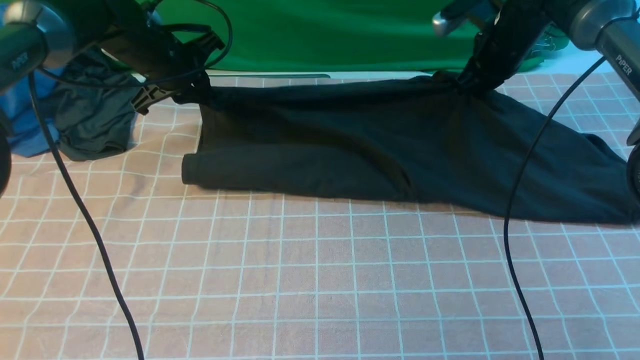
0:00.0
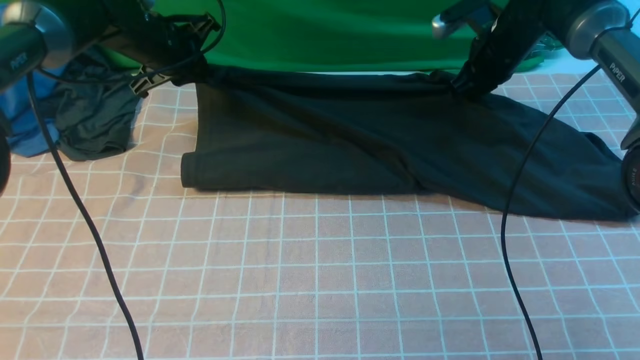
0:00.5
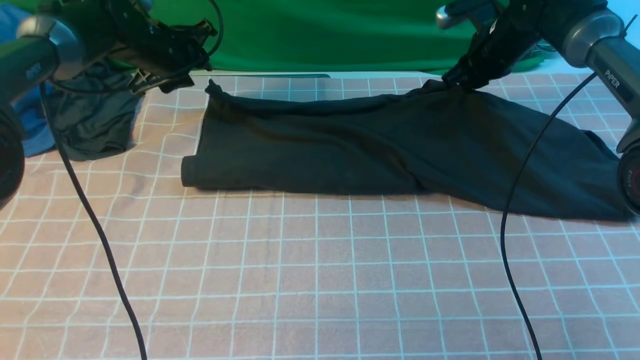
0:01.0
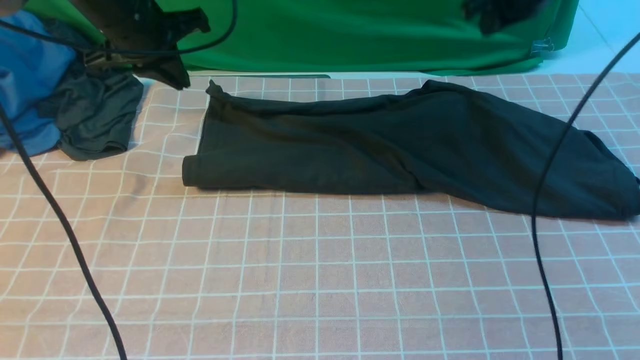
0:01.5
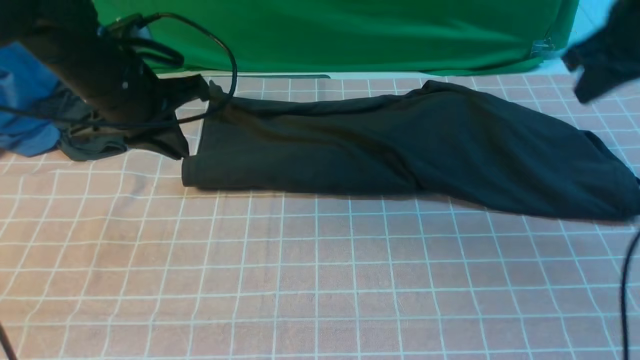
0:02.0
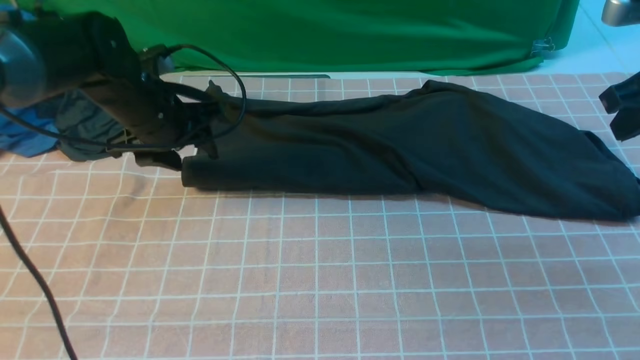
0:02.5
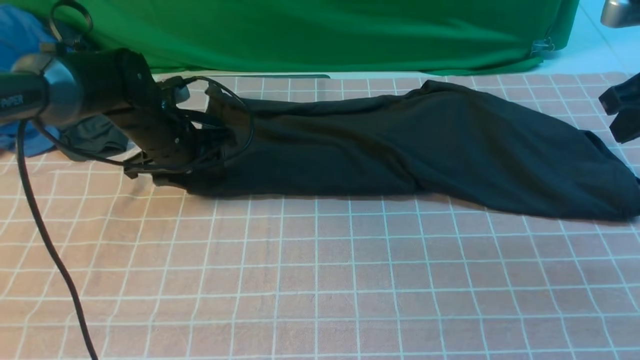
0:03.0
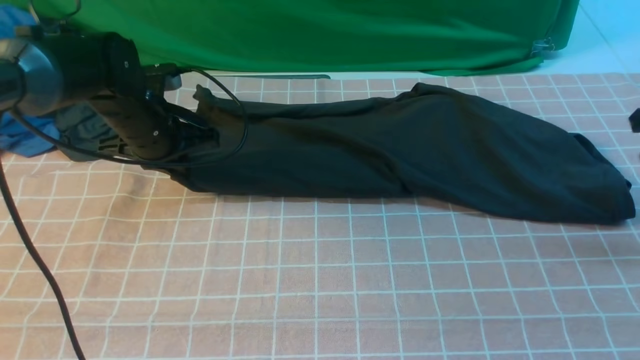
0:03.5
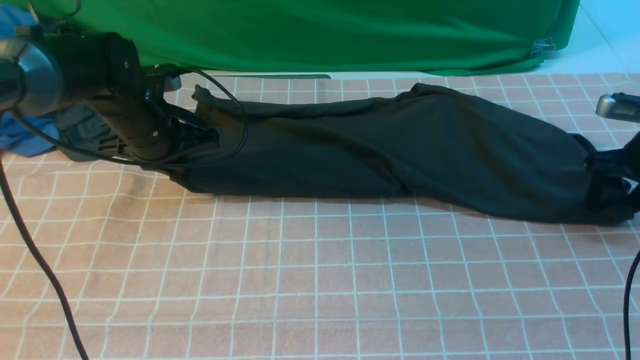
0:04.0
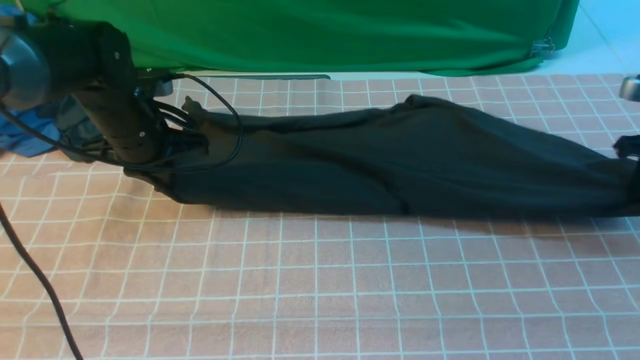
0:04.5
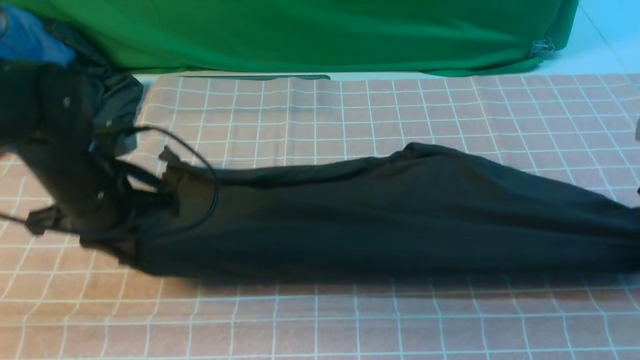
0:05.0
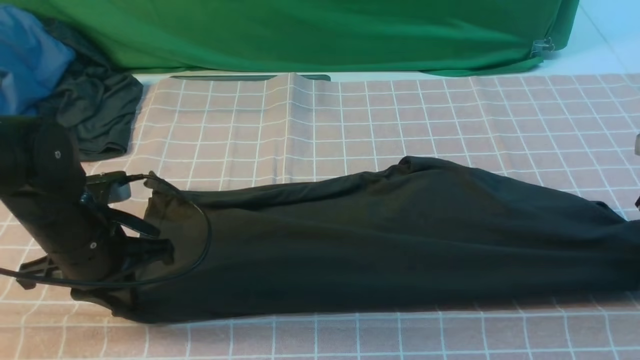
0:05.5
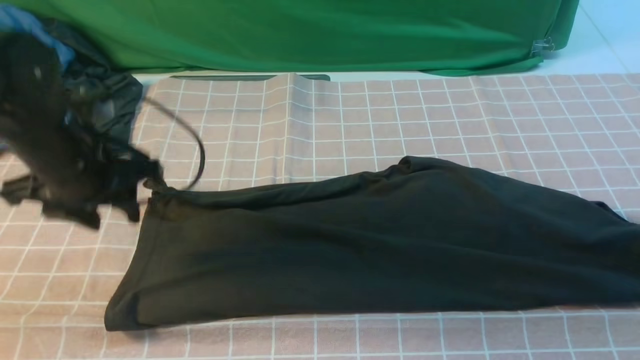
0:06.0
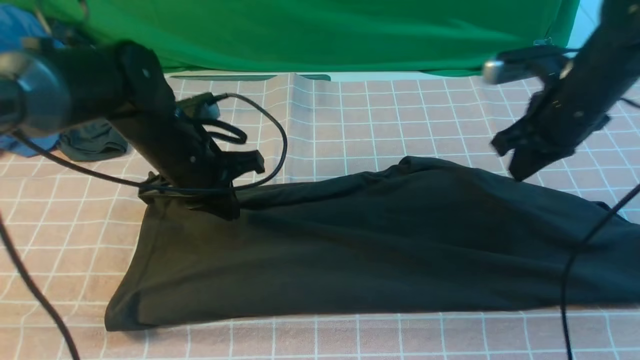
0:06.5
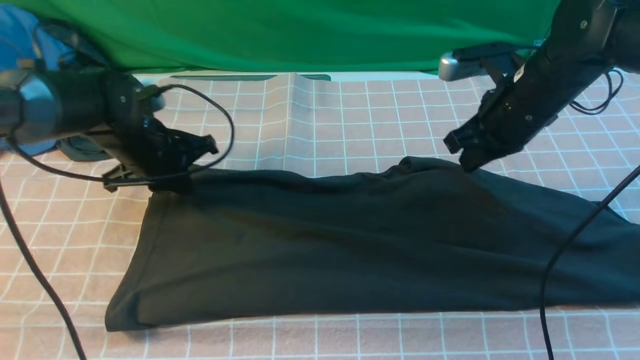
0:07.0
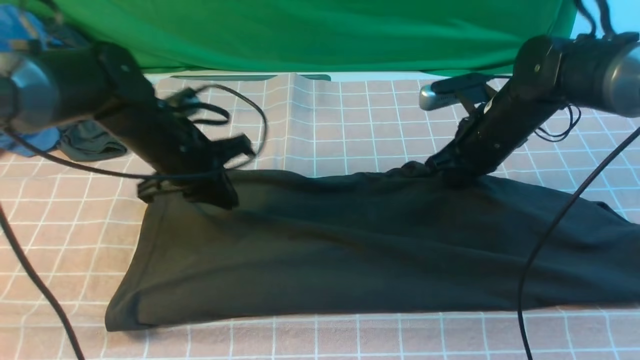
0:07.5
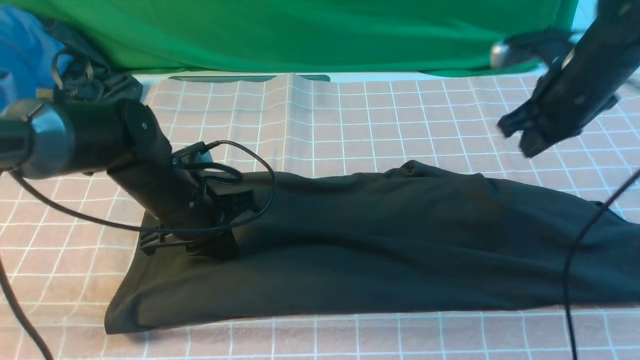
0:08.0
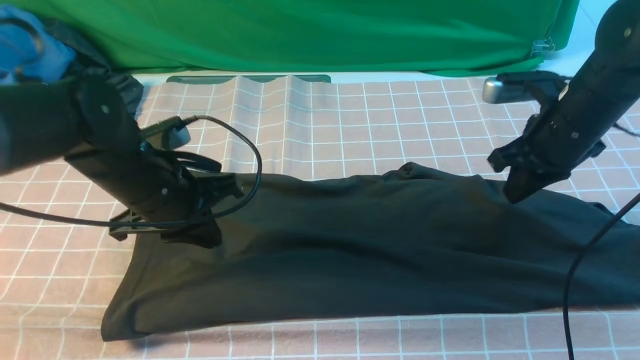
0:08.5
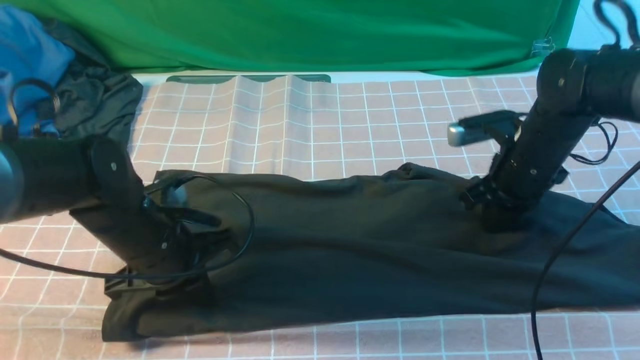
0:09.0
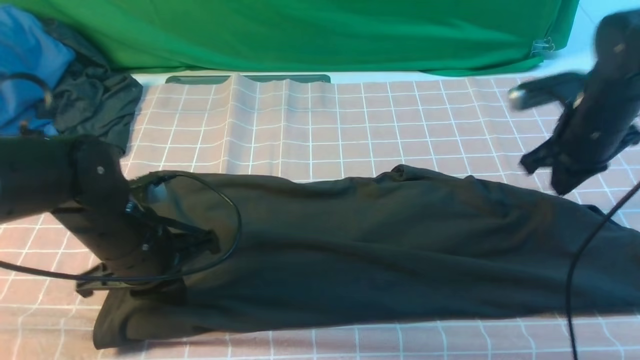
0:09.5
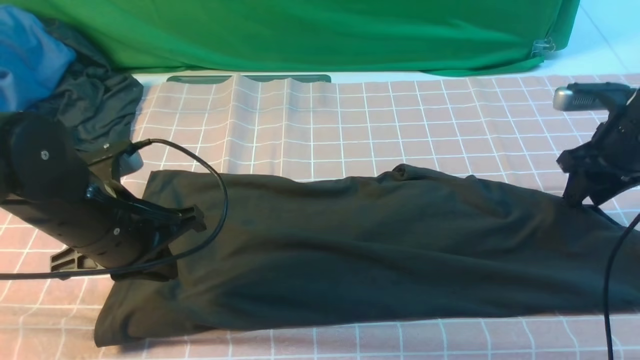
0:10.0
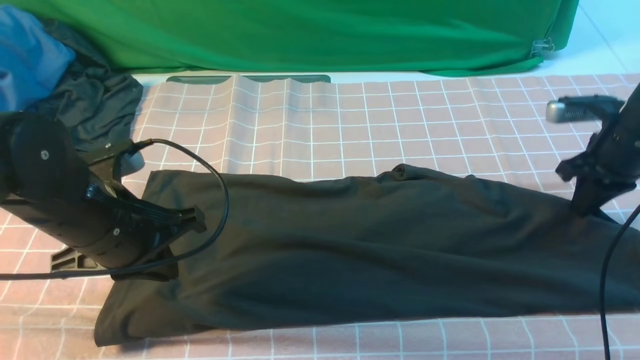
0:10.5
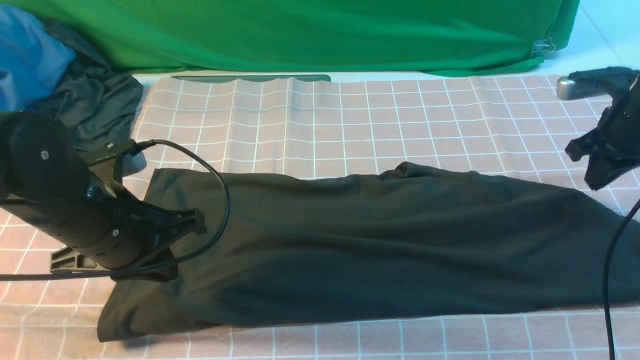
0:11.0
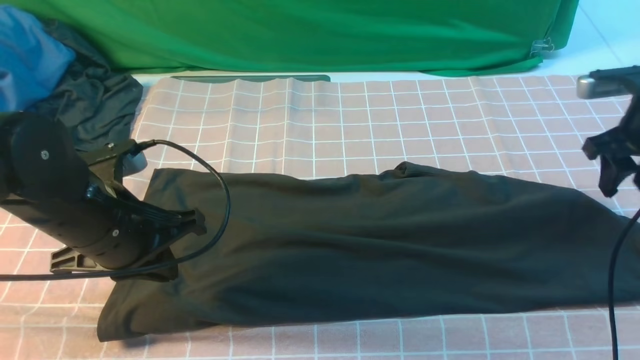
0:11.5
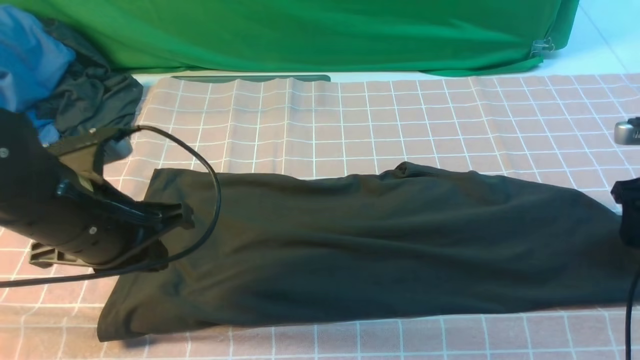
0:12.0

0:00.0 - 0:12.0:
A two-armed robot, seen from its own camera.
0:00.0 - 0:02.0: The right gripper heads backward, upward and to the right, covering some 20 cm, and opens, then closes again; the left gripper travels backward and upward by roughly 15 cm, and opens, then closes once more.
0:02.0 - 0:04.0: The left gripper is displaced downward by some 10 cm, and opens, then closes again. Meanwhile the right gripper shifts roughly 20 cm downward and to the right, and opens up.
0:04.0 - 0:06.0: The left gripper shifts some 10 cm backward and upward, and opens, while the right gripper moves upward, some 5 cm.
0:06.0 - 0:08.0: The right gripper travels to the left by some 10 cm, and closes its fingers, while the left gripper shifts some 10 cm downward and to the right, and closes.
0:08.0 - 0:10.0: The right gripper travels to the right by some 10 cm, and opens up. The left gripper goes approximately 10 cm backward and upward.
0:10.0 - 0:12.0: The right gripper shifts by about 5 cm, and opens its fingers.

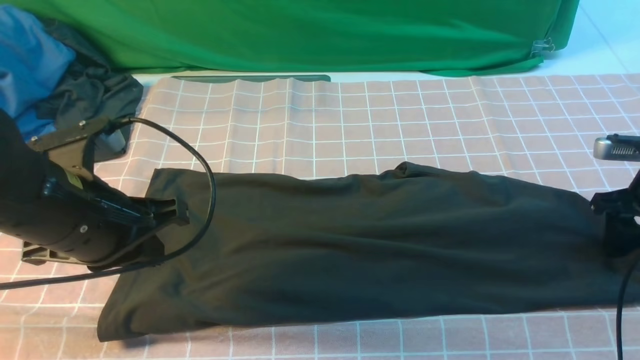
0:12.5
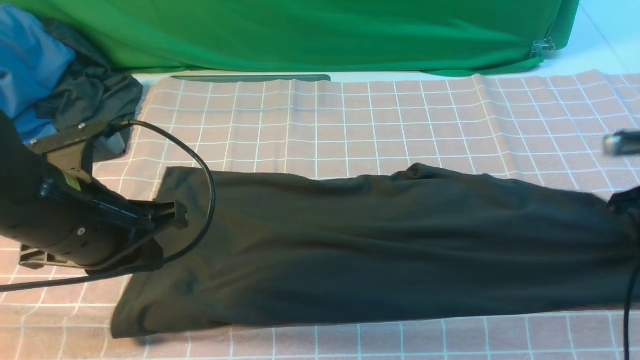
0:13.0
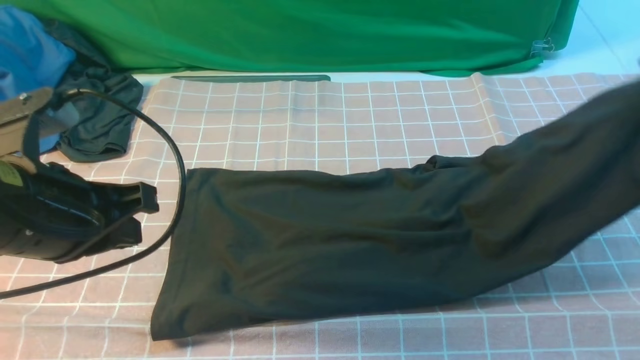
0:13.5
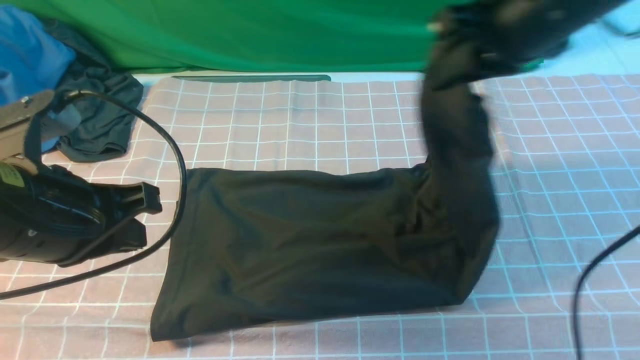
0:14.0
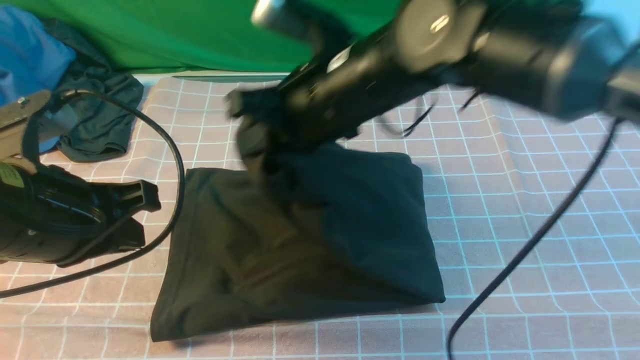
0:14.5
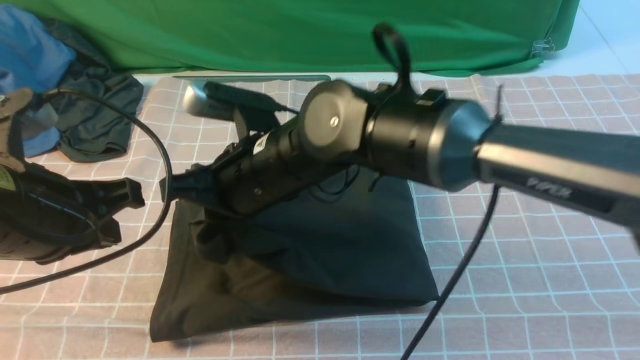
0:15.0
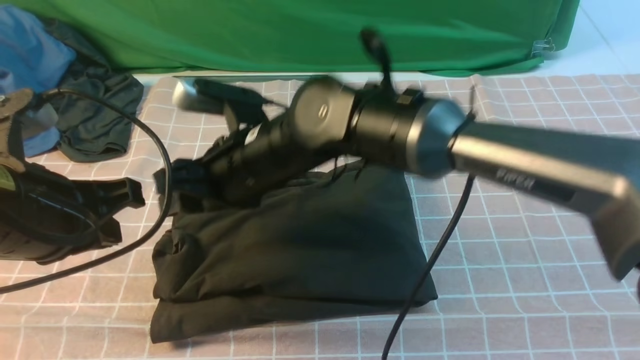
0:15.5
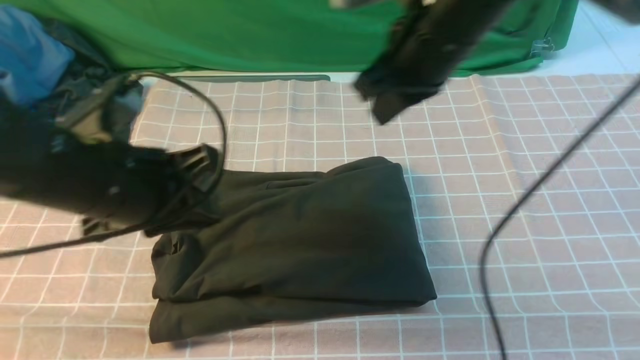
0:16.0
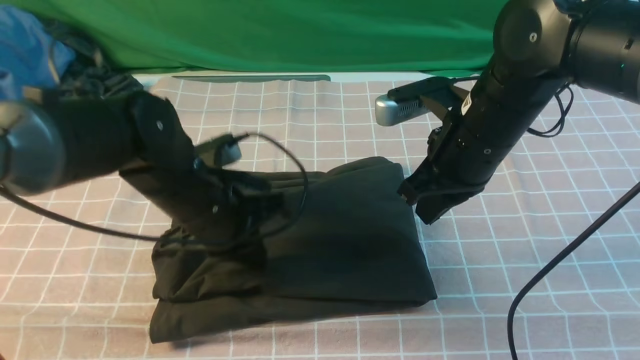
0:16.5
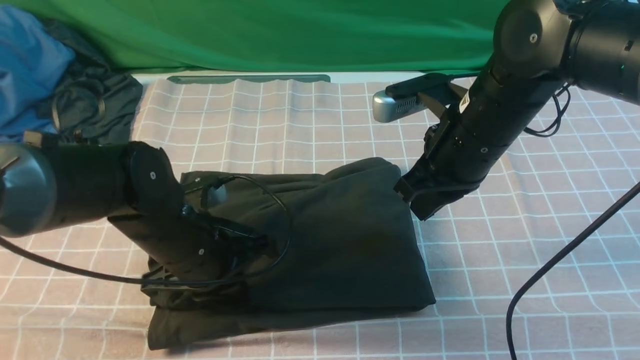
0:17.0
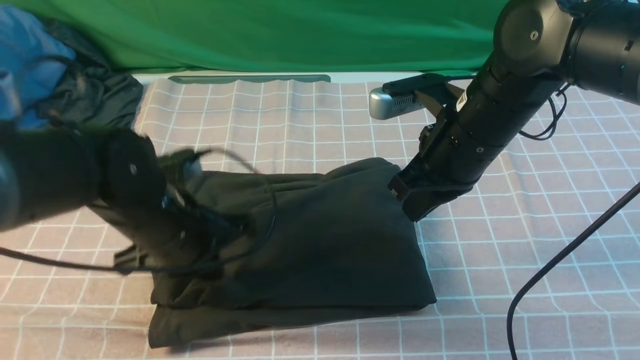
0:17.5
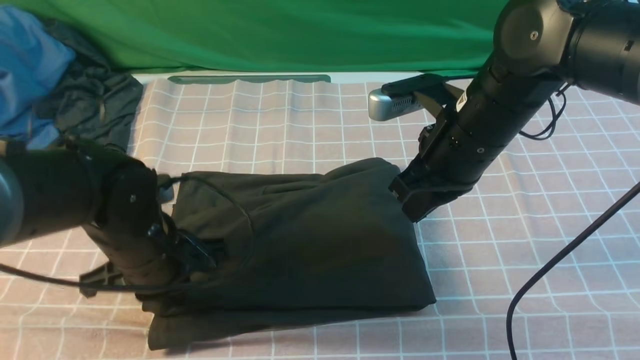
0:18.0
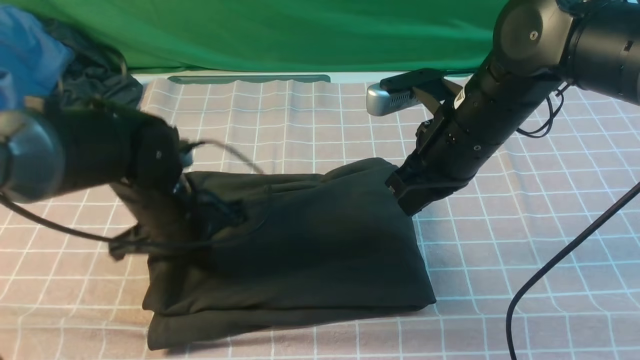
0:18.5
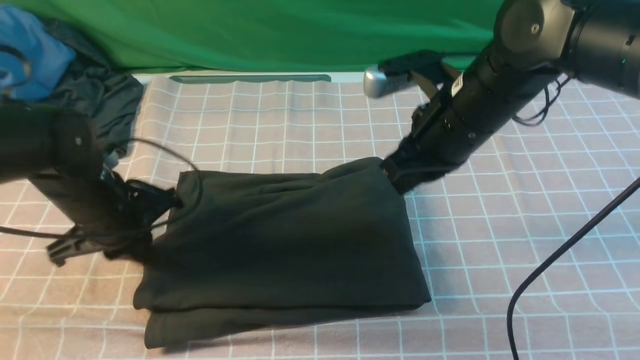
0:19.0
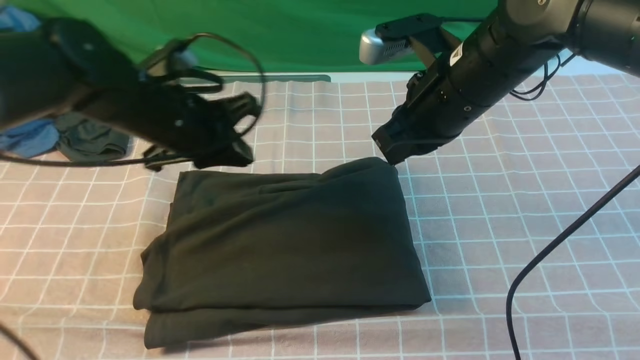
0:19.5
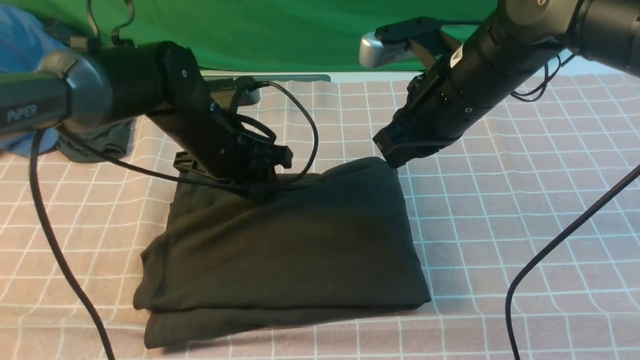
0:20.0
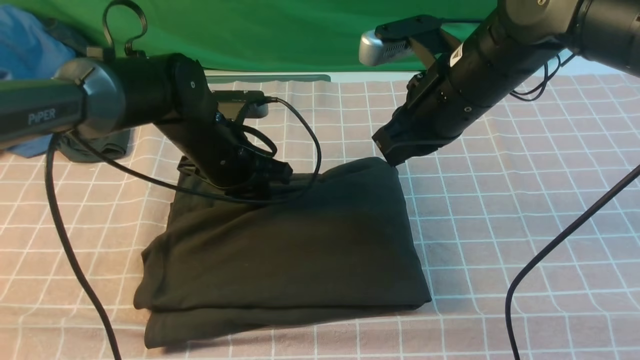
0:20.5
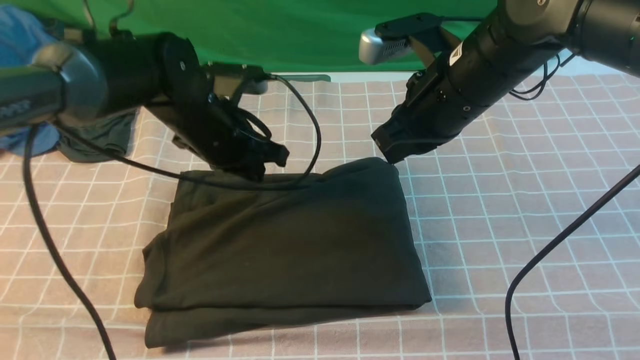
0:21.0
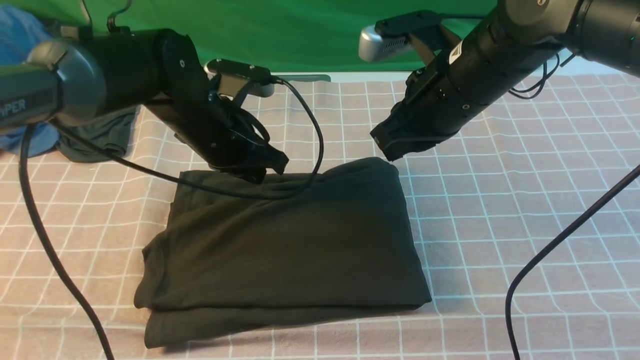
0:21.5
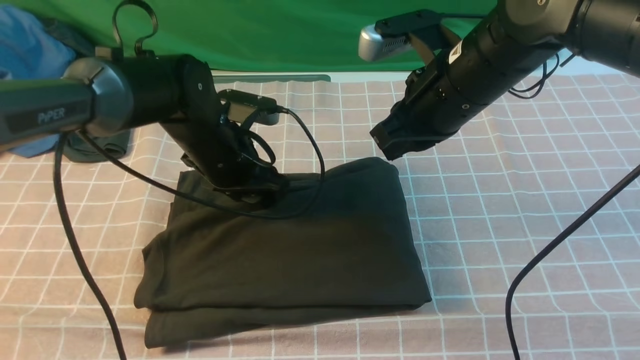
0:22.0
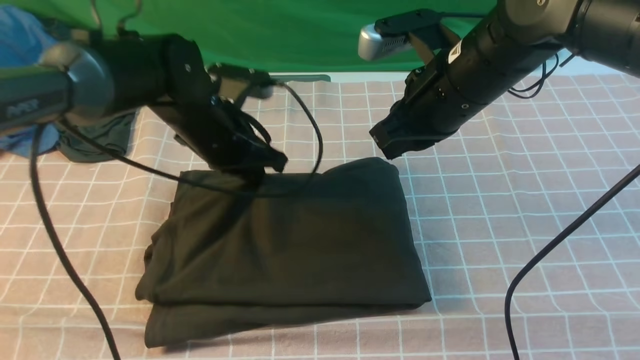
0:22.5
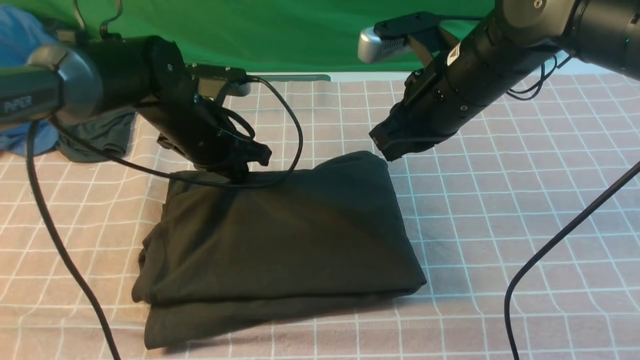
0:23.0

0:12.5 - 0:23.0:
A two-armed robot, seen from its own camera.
Step, 0:13.5 - 0:15.5: use the right arm to drag the right edge of the fabric to the left and folds it over the left edge.
0:12.5 - 0:14.5: The left gripper changes place by roughly 5 cm, while the right gripper heads to the left, covering roughly 40 cm, and closes.
0:14.5 - 0:16.5: The left gripper goes approximately 15 cm downward, forward and to the right. The right gripper shifts some 15 cm to the right, and opens, then closes once more.
0:16.5 - 0:19.0: The left gripper is displaced to the left by some 10 cm.
0:19.0 - 0:21.0: The left gripper travels to the right and forward by roughly 10 cm, and opens, then closes once more.
0:21.0 - 0:23.0: The left gripper opens, then closes again.
